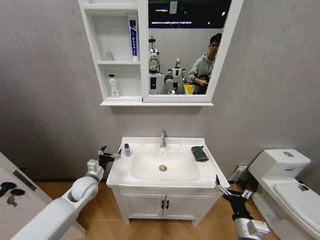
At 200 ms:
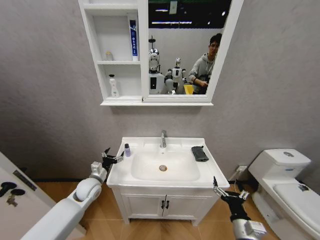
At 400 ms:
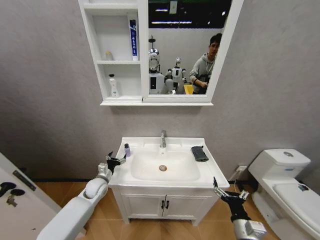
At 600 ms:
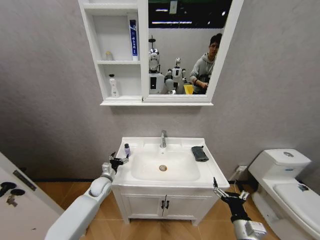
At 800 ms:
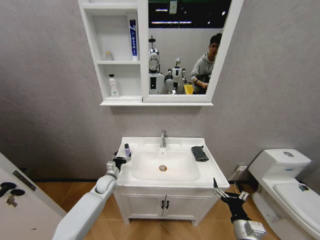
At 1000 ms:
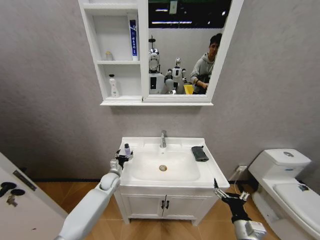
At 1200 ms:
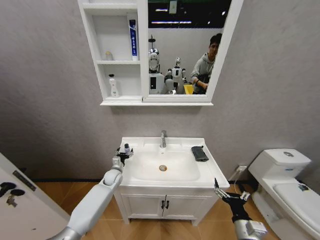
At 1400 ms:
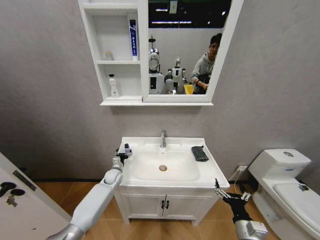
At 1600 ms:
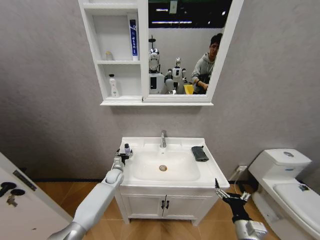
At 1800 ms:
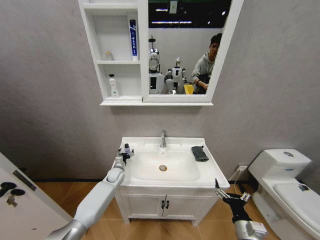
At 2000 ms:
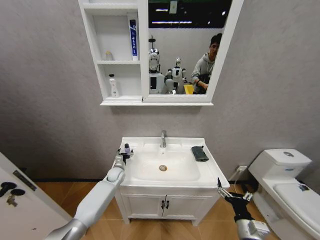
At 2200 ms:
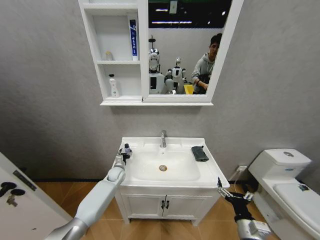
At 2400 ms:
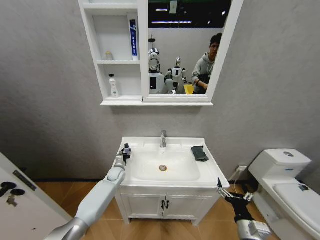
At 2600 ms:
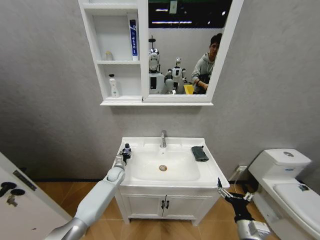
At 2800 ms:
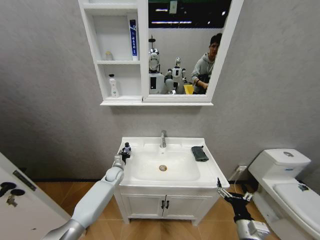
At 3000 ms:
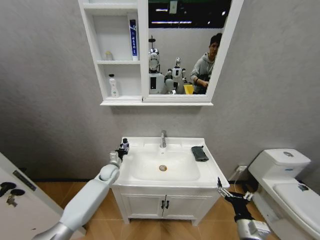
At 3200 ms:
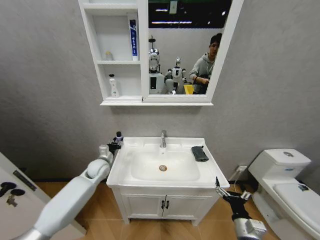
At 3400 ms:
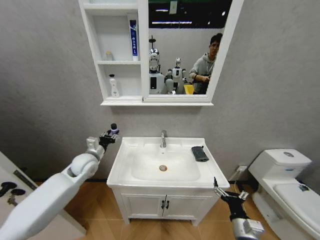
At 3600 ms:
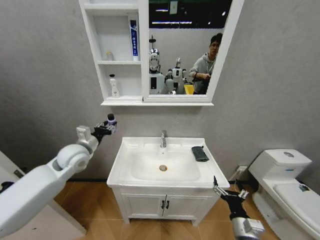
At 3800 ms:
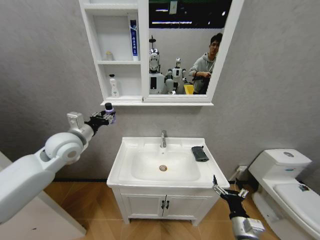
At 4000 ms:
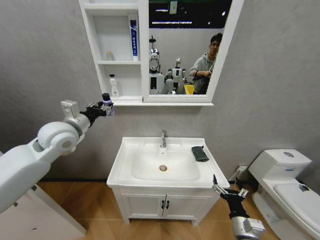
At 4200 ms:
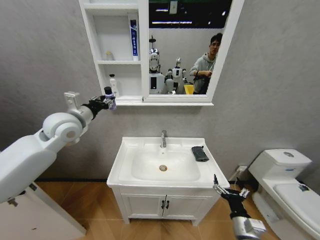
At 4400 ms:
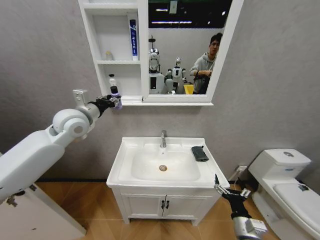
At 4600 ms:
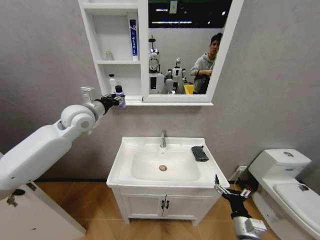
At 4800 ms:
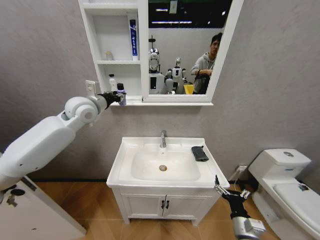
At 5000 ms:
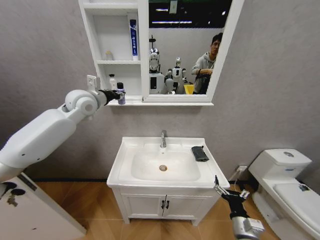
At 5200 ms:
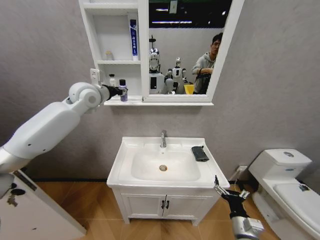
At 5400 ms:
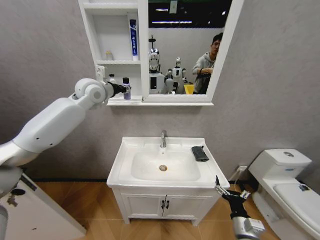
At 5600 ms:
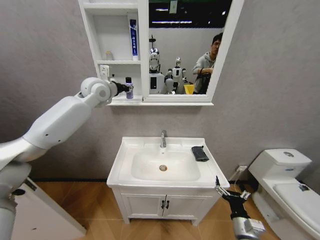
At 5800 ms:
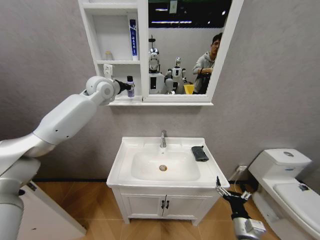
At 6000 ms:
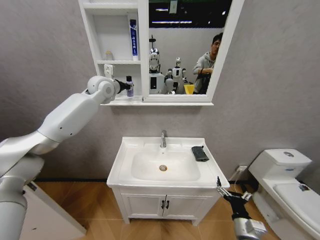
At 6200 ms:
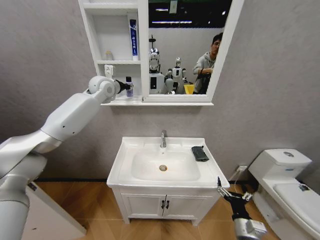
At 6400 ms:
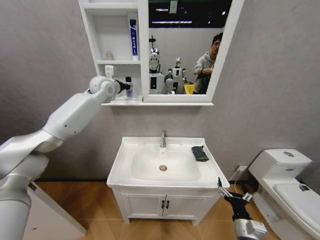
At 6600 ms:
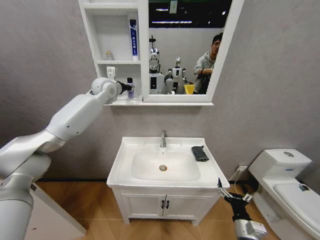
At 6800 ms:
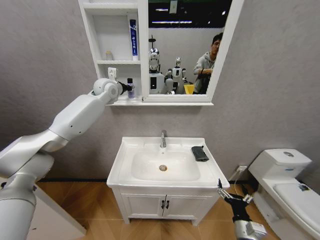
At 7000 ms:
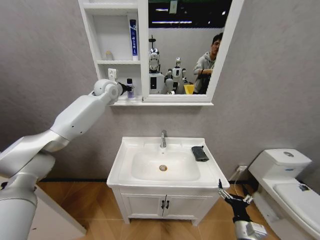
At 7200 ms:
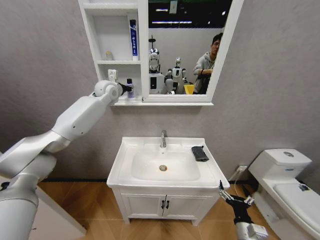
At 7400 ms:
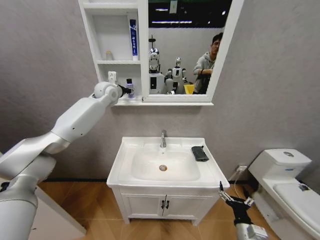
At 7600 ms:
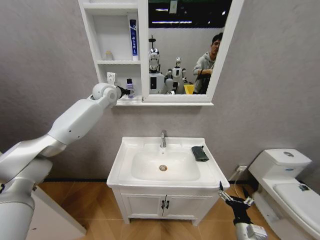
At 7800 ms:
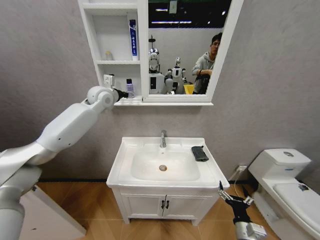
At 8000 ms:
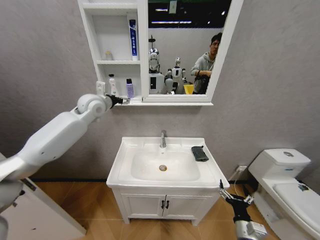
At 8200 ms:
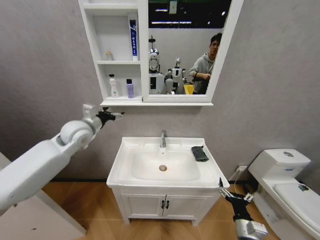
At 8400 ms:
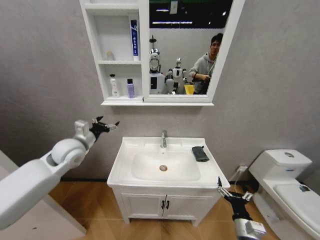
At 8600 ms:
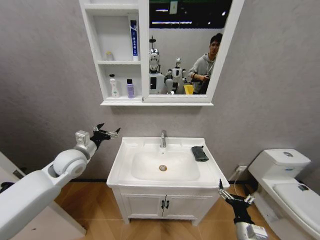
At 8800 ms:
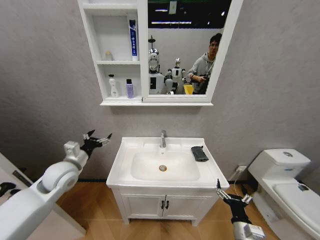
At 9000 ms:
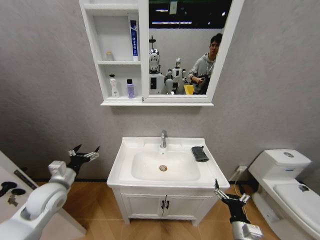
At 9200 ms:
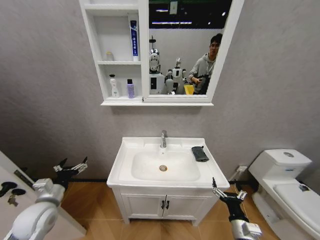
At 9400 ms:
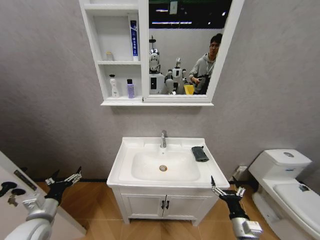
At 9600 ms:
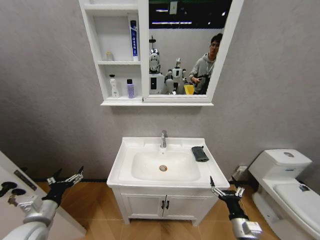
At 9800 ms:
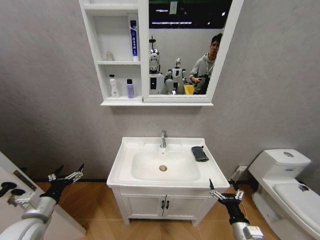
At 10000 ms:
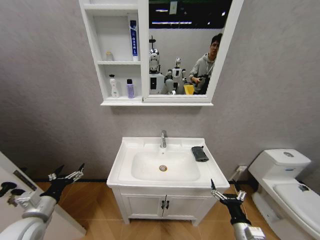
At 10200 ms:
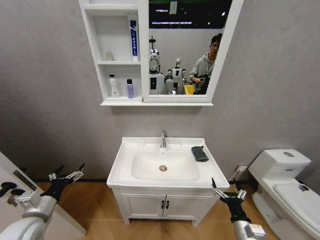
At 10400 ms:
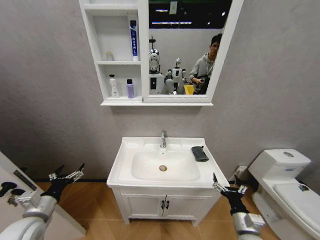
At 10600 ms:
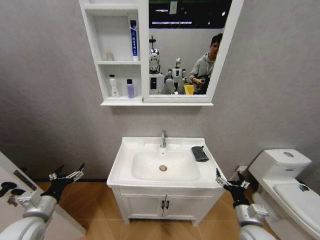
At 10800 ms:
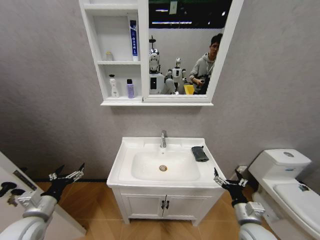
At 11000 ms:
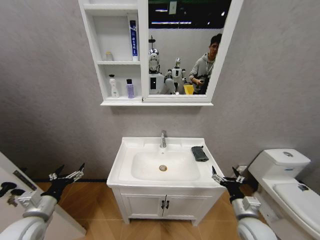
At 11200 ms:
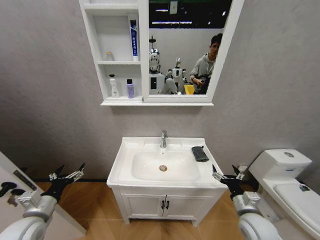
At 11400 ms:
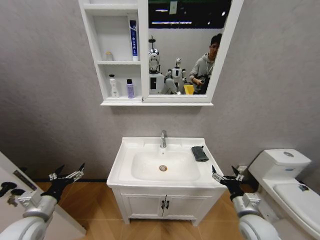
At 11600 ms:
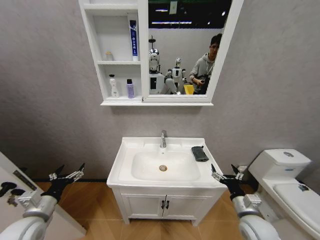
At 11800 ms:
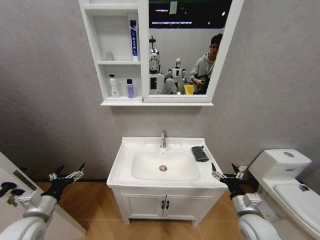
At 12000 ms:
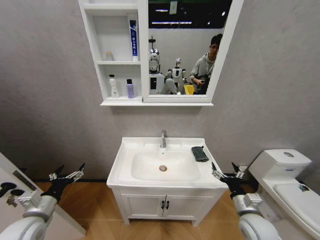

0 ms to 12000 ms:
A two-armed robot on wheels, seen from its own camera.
Task of the whole recording: Move facial cleanser and shampoo from washbasin to cabinet, then wipe washbasin with towel.
0 ms to 1600 ms: The left gripper is displaced downward, forward and to the right by about 20 cm.
1600 ms to 3000 ms: The left gripper shifts about 5 cm upward, and closes up.
3000 ms to 4400 ms: The left gripper goes some 35 cm upward.
4400 ms to 6000 ms: The left gripper shifts roughly 15 cm forward and upward.
6000 ms to 7600 ms: The left gripper opens up.
7600 ms to 9000 ms: The left gripper heads backward, downward and to the left, covering approximately 40 cm.
9000 ms to 10400 ms: The left gripper travels backward by some 10 cm.
10400 ms to 12000 ms: The right gripper moves forward, some 5 cm.

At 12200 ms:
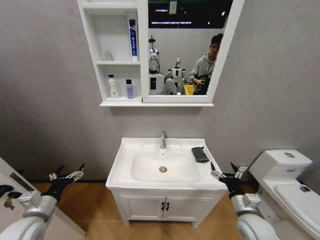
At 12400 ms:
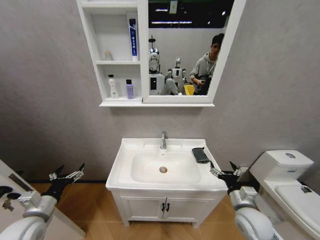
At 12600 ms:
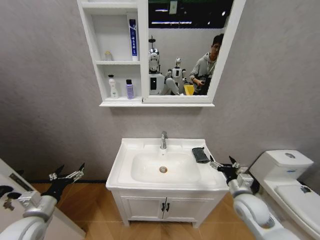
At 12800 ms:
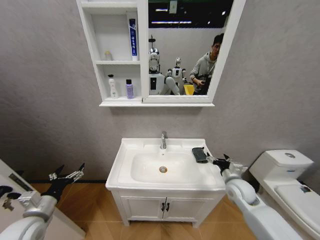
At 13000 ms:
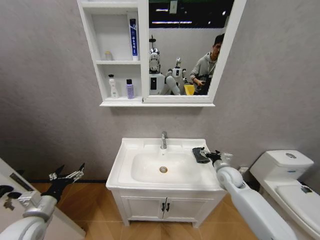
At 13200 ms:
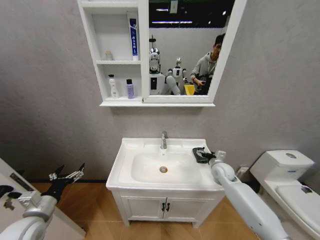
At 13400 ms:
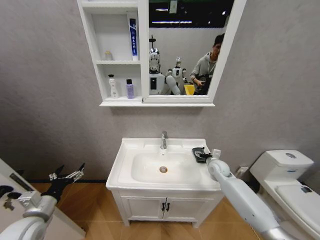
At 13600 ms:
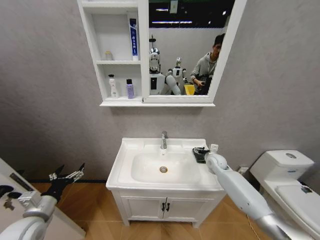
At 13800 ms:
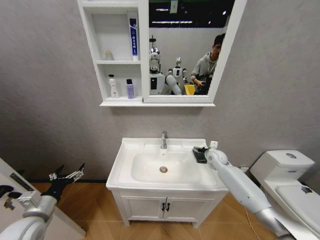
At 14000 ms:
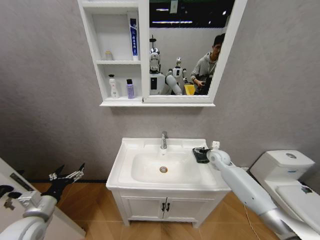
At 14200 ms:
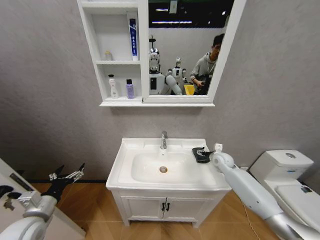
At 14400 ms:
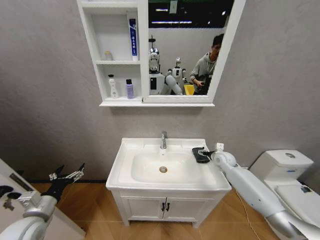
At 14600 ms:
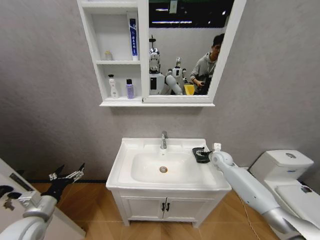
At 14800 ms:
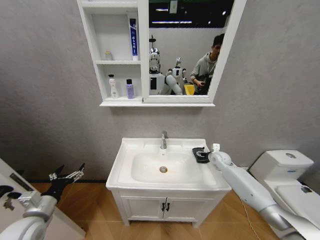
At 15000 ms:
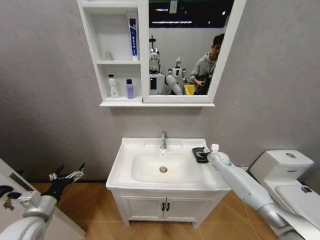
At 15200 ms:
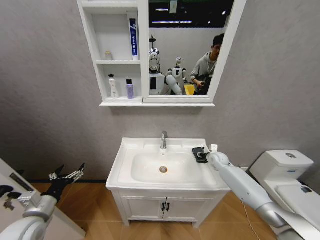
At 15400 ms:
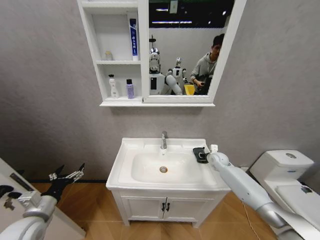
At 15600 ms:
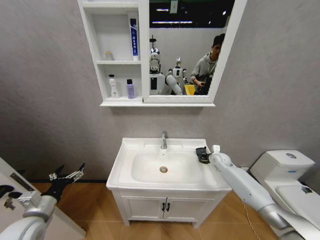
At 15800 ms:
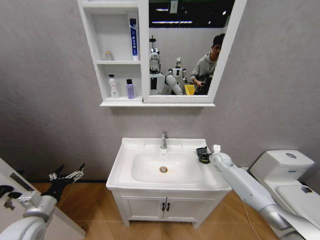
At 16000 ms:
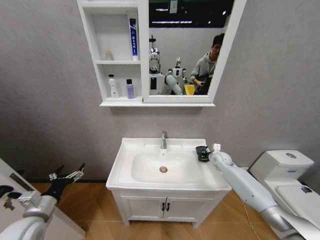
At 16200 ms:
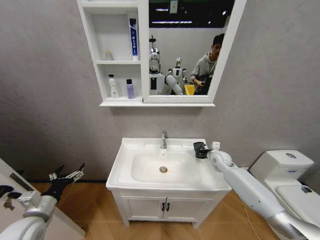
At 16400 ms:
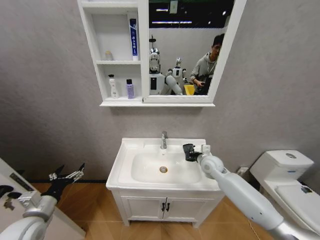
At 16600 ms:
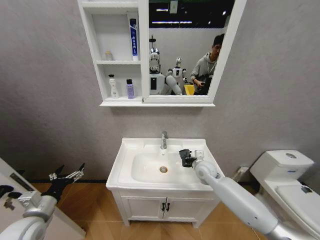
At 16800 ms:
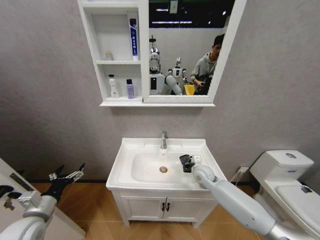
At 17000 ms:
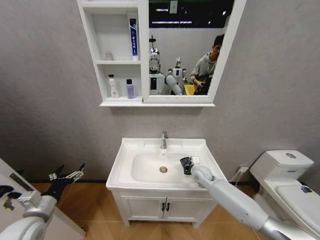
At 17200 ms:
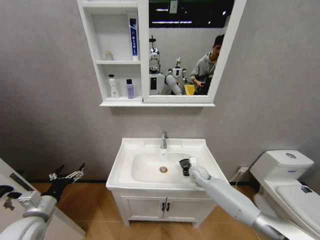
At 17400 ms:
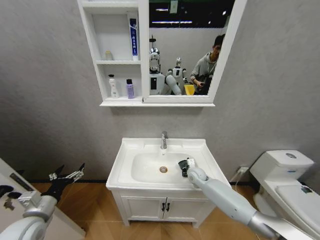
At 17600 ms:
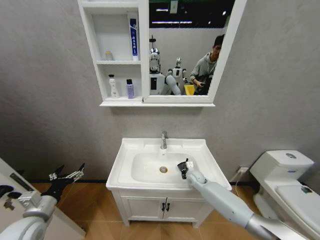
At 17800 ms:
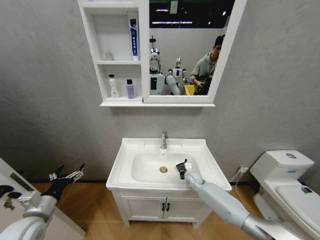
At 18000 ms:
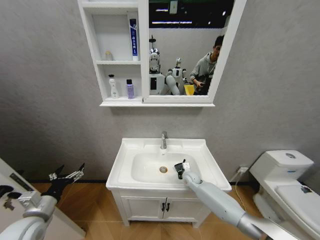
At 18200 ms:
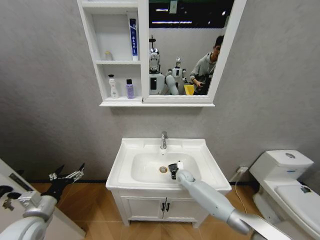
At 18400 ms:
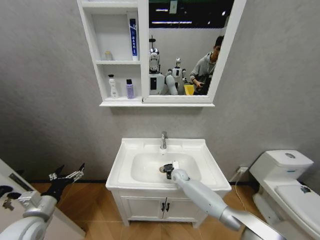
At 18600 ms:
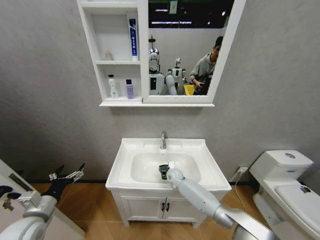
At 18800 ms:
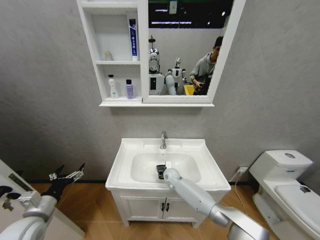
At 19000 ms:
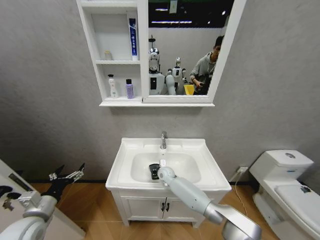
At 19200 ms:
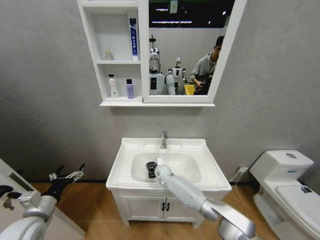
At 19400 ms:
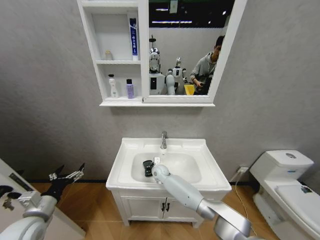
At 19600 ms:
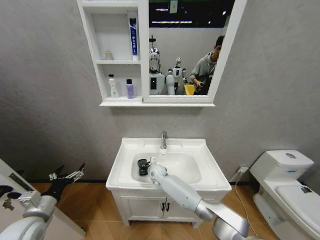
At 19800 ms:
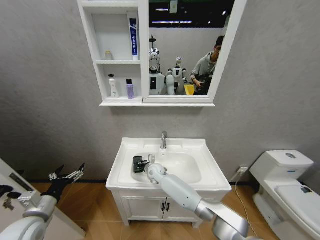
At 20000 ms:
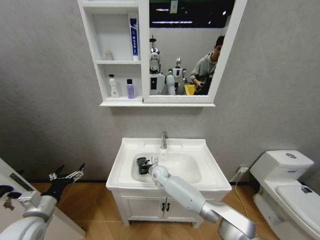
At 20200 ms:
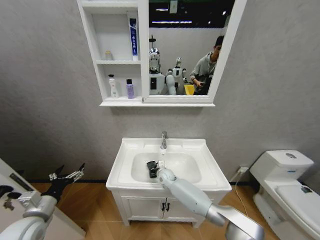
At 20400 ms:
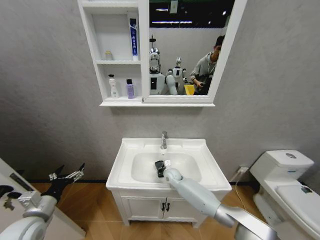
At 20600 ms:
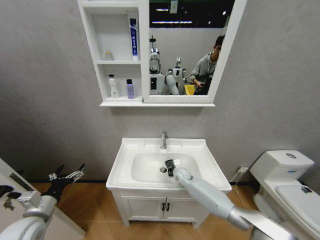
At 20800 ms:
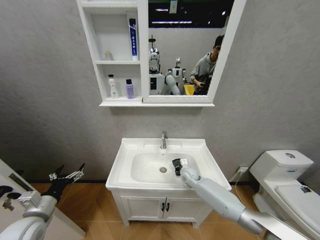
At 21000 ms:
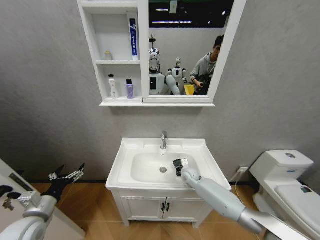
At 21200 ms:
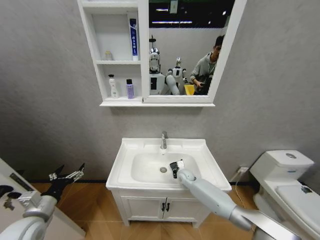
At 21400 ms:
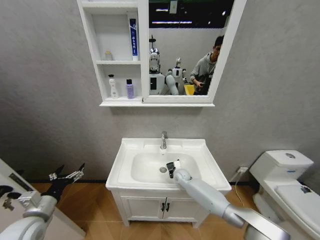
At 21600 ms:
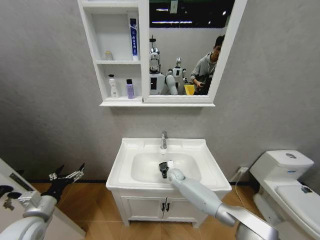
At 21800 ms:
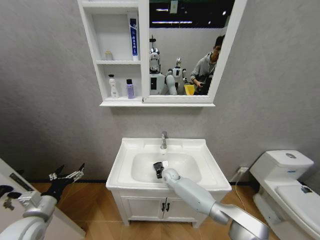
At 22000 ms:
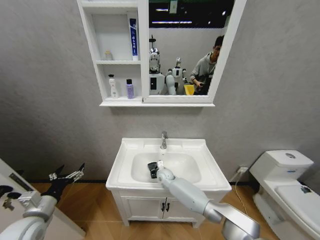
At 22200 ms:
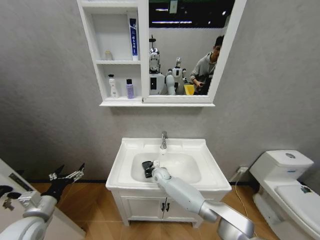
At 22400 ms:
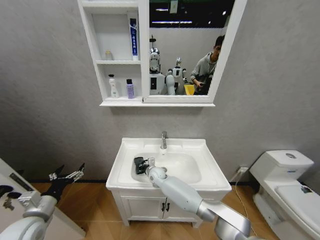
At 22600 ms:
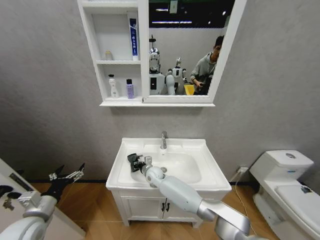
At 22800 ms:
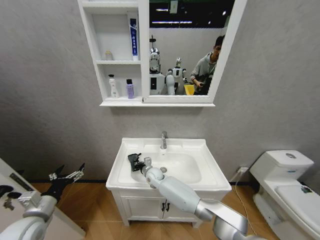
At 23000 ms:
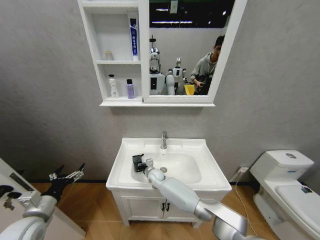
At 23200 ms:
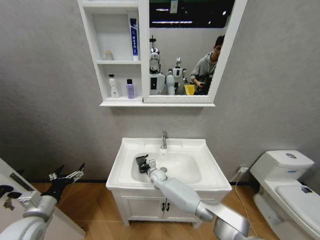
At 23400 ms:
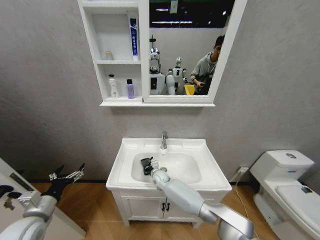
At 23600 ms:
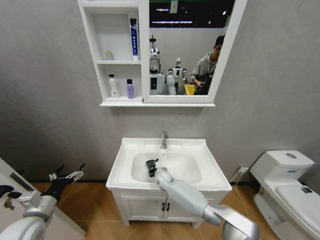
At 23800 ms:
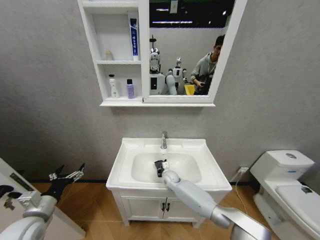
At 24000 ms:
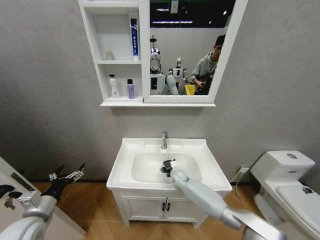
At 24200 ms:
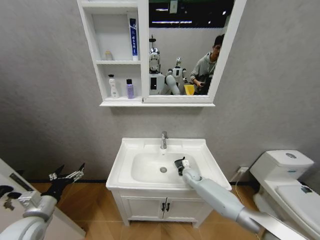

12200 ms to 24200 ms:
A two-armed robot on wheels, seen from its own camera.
Task of the whole recording: Move facial cleanser and shampoo from washbasin to cabinet, then wipe washbasin with towel.
12200 ms to 13800 ms: The right gripper heads forward, covering roughly 30 cm.
13800 ms to 15200 ms: The right gripper closes its fingers.
15200 ms to 16600 ms: The right gripper travels to the left and backward by some 15 cm, and closes its fingers.
16600 ms to 18200 ms: The right gripper is displaced downward and to the left by about 15 cm.
18200 ms to 19800 ms: The right gripper moves to the left, some 20 cm.
19800 ms to 21200 ms: The right gripper travels to the right by approximately 20 cm.
21200 ms to 22600 ms: The right gripper shifts roughly 20 cm to the left.
22600 ms to 24200 ms: The right gripper goes roughly 20 cm to the right.
